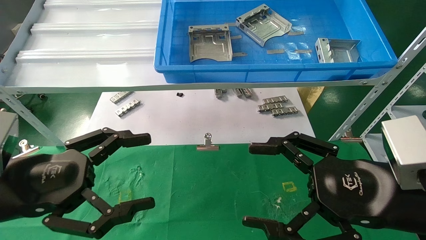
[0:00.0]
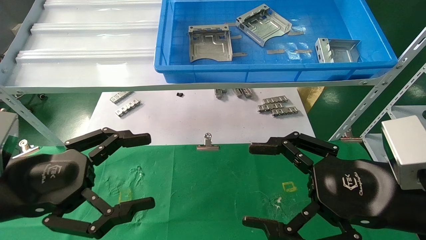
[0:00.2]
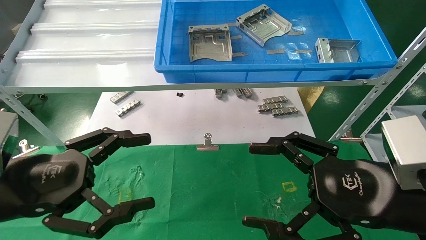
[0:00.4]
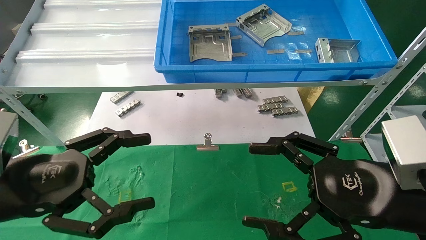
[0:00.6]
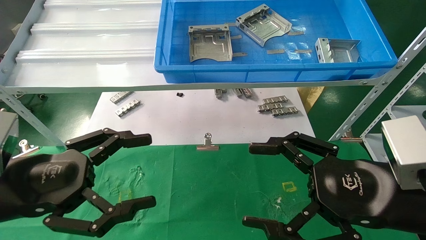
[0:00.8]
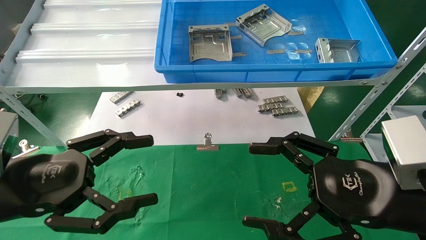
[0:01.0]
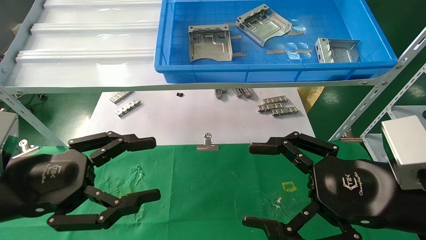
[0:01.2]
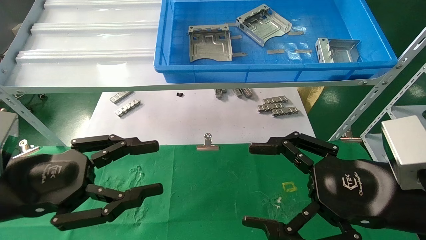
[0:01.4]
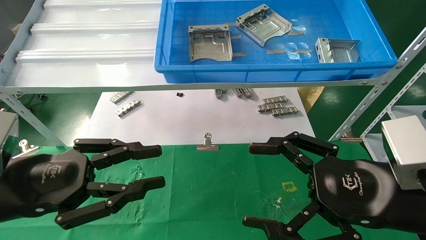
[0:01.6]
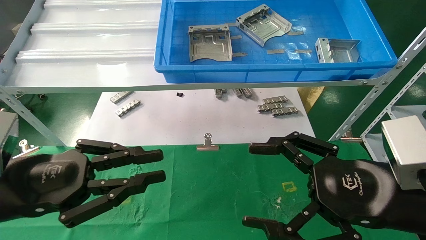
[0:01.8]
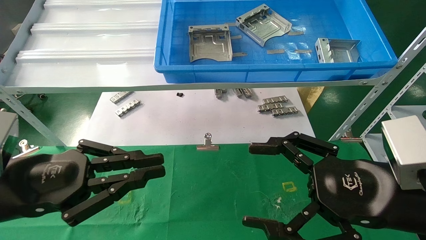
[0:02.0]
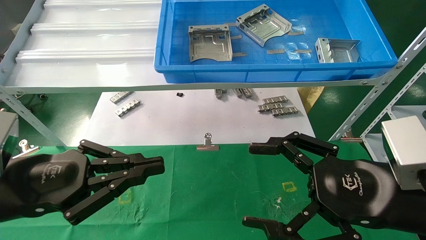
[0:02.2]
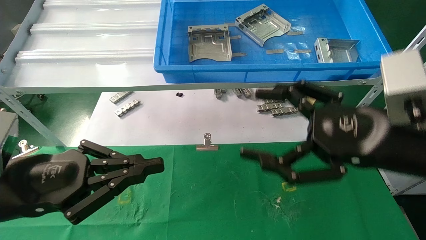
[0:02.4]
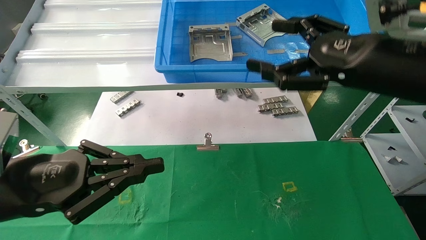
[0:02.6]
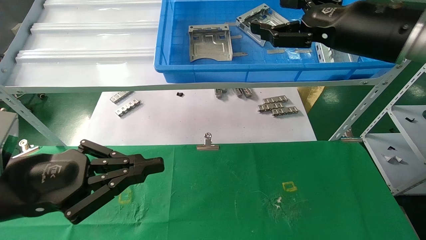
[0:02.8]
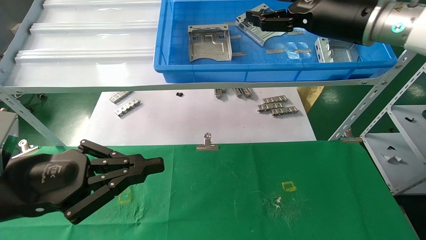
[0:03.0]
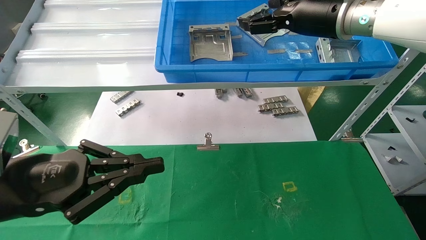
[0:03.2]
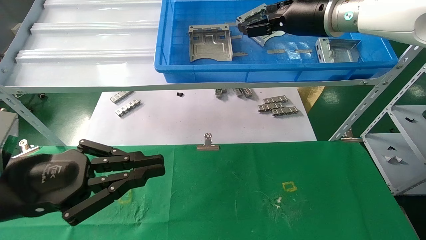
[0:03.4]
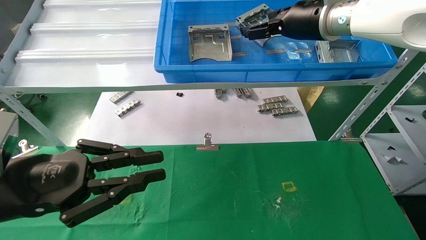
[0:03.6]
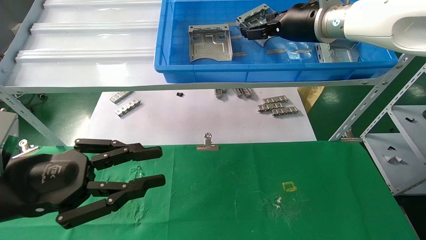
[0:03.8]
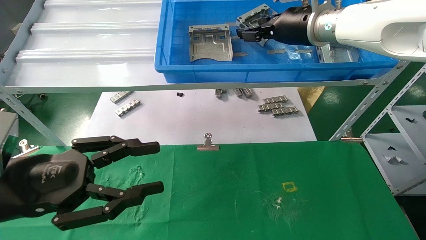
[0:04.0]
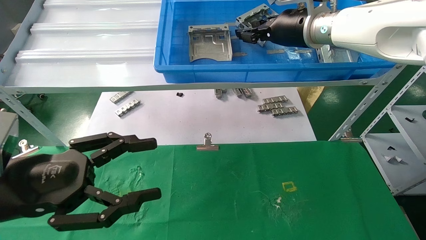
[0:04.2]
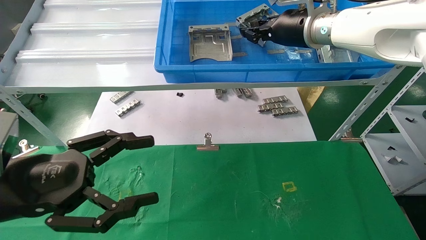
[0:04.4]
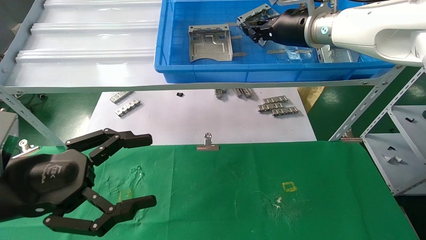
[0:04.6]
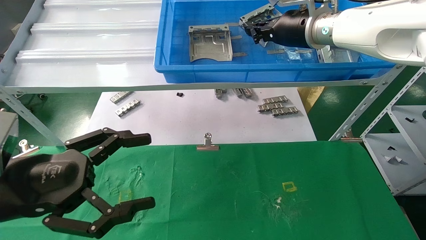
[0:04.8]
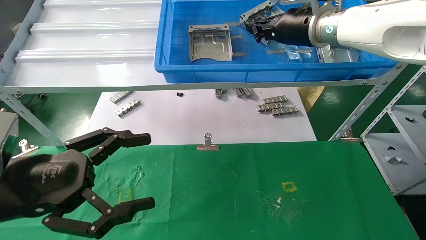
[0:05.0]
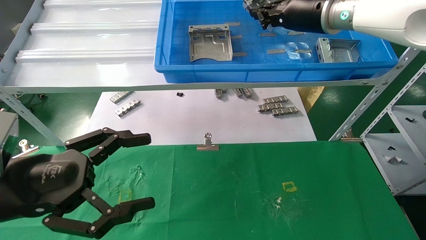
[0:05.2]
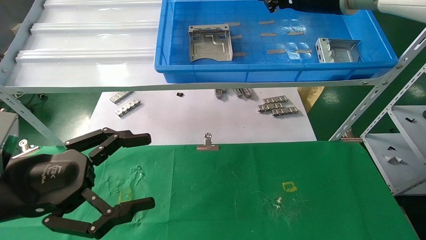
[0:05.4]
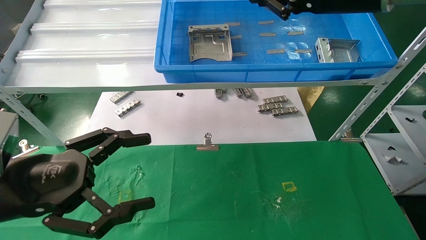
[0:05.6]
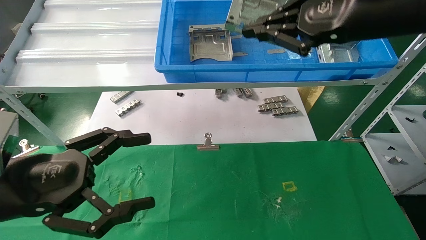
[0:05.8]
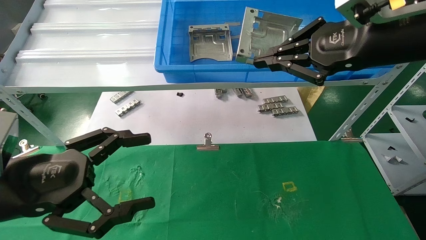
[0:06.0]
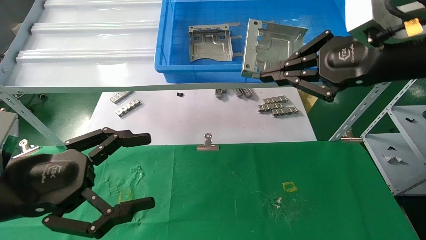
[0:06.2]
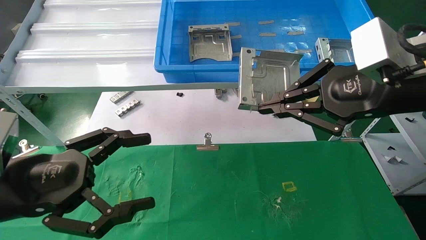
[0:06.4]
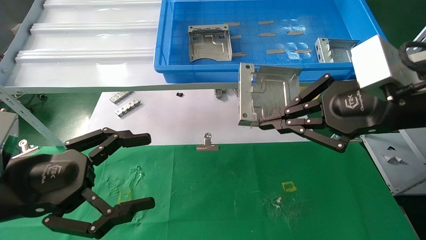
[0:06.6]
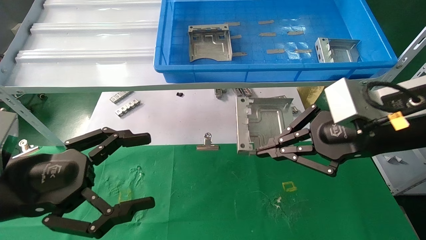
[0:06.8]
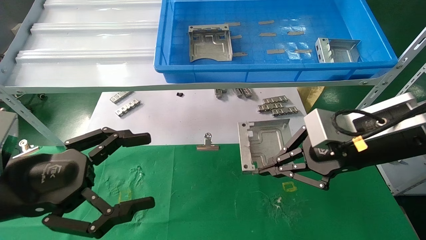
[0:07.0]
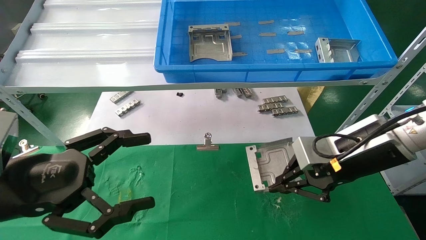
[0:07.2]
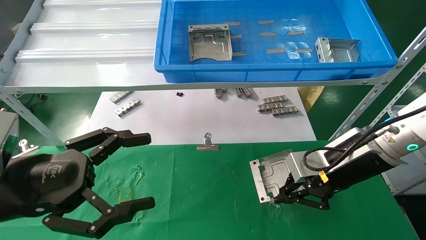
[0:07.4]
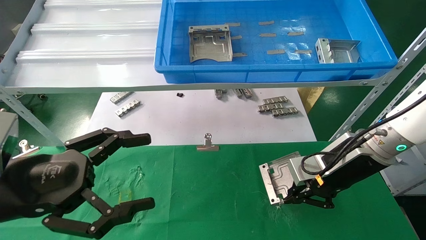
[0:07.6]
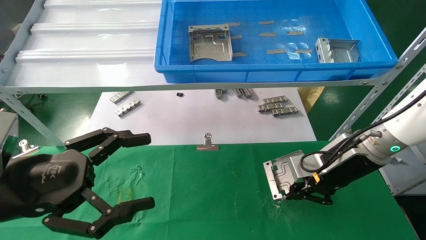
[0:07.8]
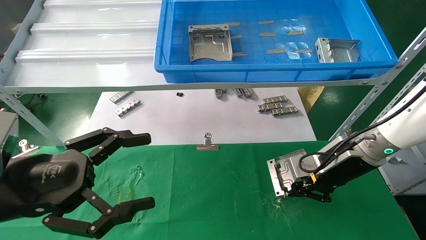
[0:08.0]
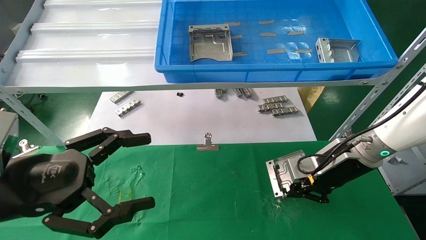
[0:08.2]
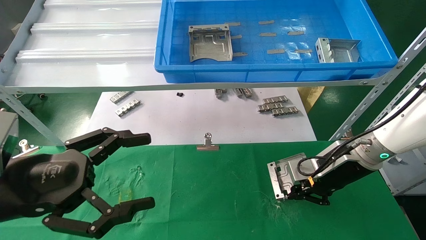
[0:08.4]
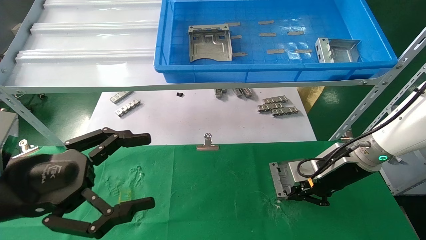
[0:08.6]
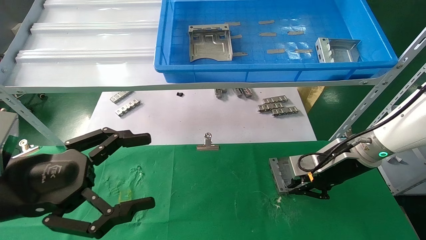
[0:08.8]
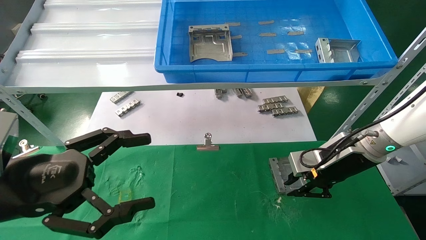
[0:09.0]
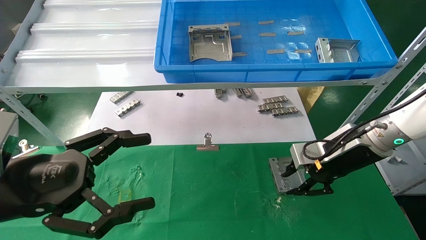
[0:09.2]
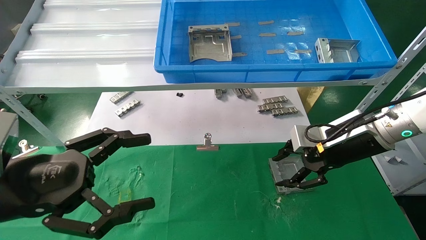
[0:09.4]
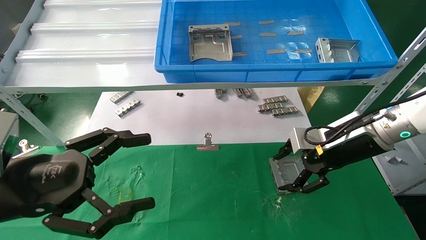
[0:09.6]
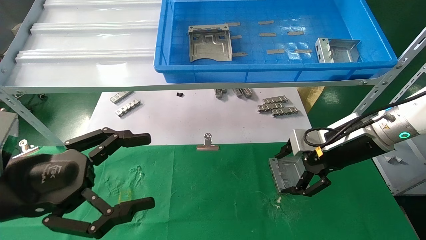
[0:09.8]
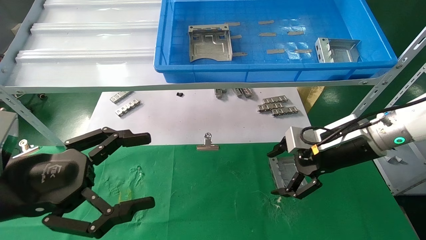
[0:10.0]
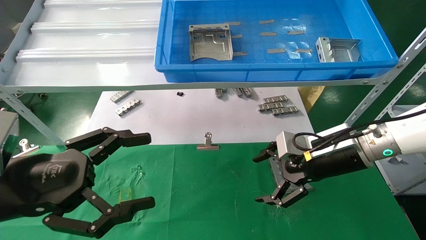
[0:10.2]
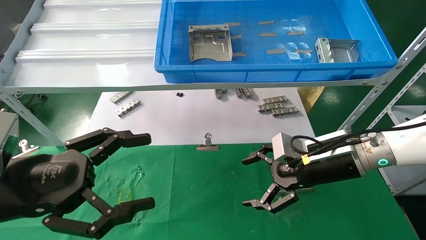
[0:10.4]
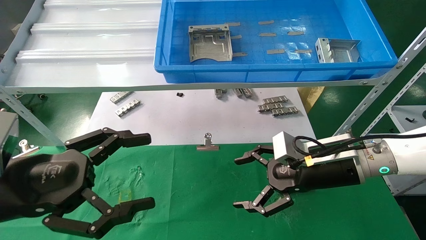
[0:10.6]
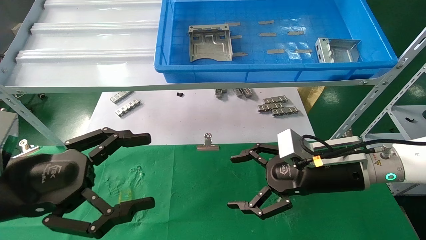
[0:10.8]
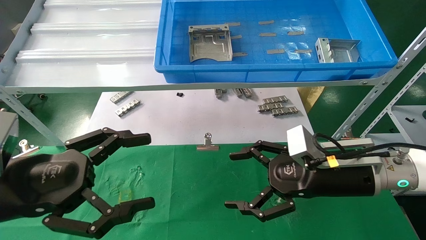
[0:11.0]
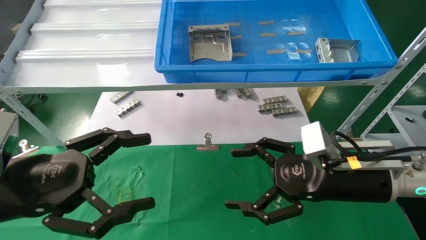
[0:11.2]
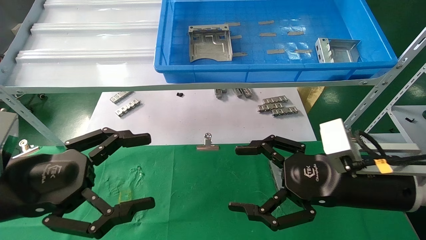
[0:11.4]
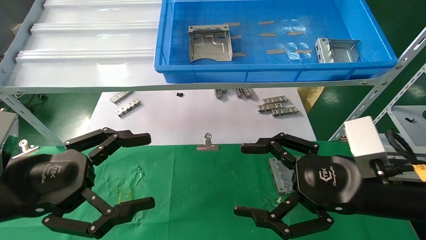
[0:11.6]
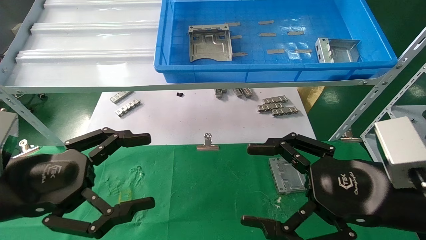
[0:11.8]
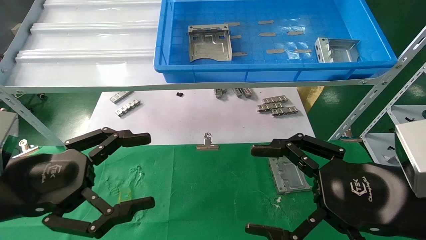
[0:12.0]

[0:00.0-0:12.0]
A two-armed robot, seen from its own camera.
Task of the whole recording: use the mechanical arm to pick up the parts and place them on the table.
Step, 0:01.8 to 0:05.8: Pick up the hard drive bracket from the feeding area.
Step, 0:06.0 to 0:09.6: Place the hard drive bracket into the box.
0:00.0 to 0:01.6: The left gripper closes its fingers.
0:01.6 to 0:03.0: The right gripper moves upward and forward, roughly 25 cm. Meanwhile the left gripper closes.
0:03.0 to 0:04.4: The right gripper is displaced forward and to the left by approximately 10 cm, and closes its fingers. Meanwhile the left gripper opens up.
0:04.4 to 0:06.0: The right gripper travels backward and to the right by about 20 cm, and closes.
0:06.0 to 0:07.6: The right gripper goes some 20 cm downward.
0:07.6 to 0:09.0: The grippers move only a little.
0:09.0 to 0:10.4: The right gripper moves some 5 cm, and opens.
0:10.4 to 0:12.0: The right gripper goes some 15 cm backward.
